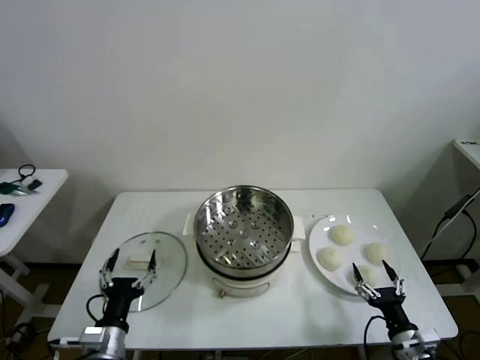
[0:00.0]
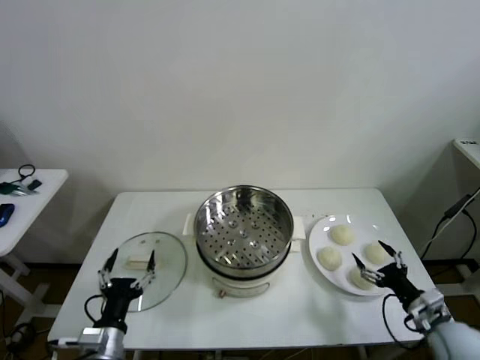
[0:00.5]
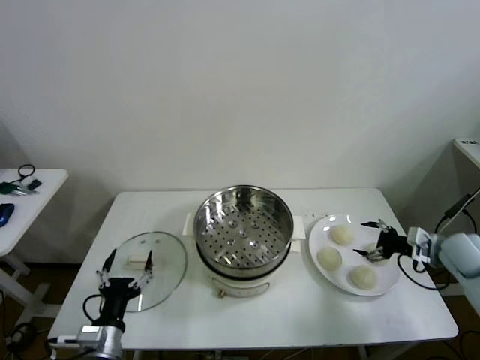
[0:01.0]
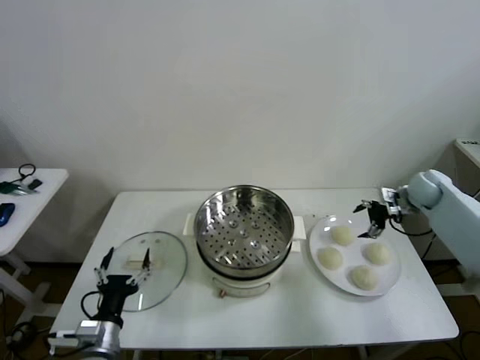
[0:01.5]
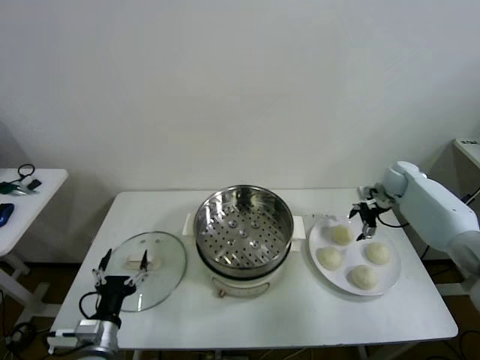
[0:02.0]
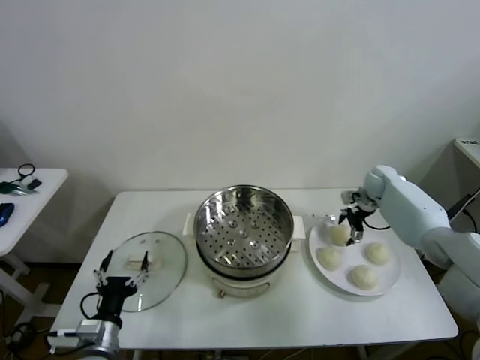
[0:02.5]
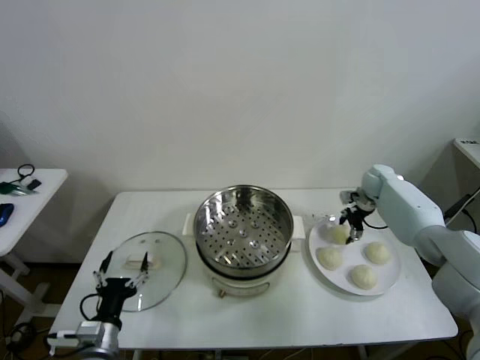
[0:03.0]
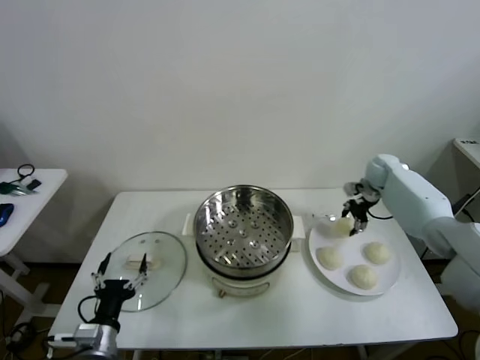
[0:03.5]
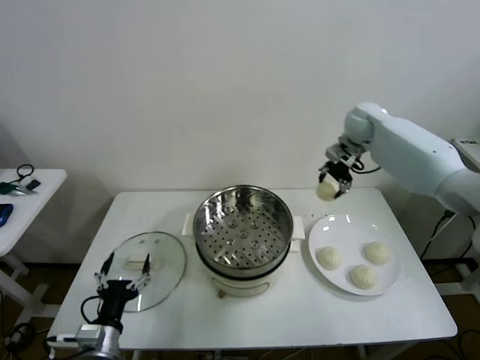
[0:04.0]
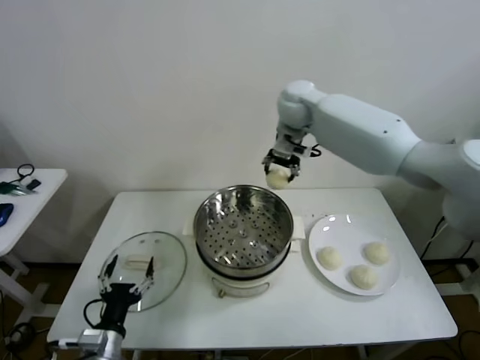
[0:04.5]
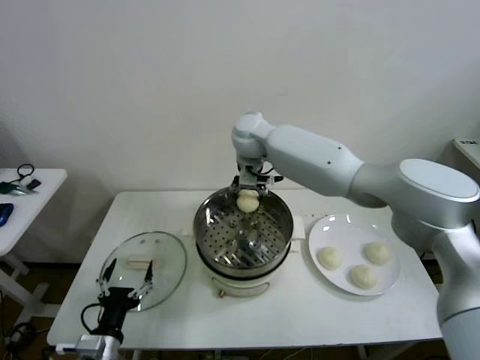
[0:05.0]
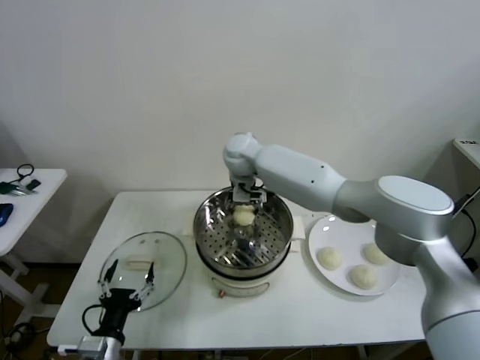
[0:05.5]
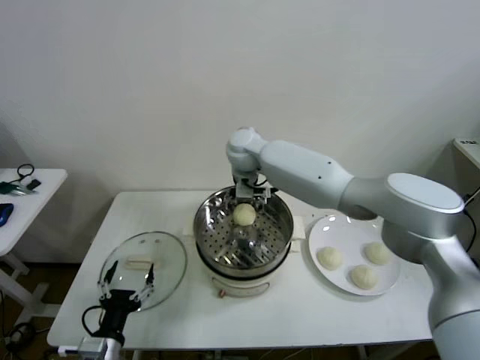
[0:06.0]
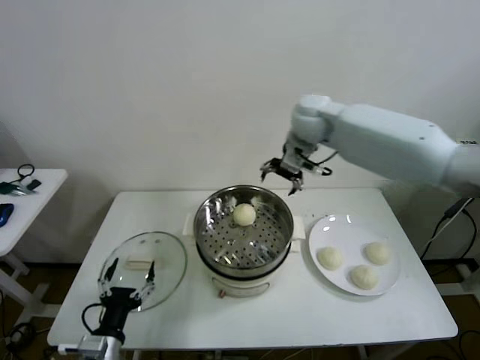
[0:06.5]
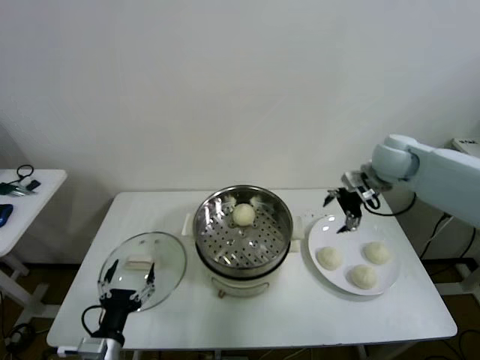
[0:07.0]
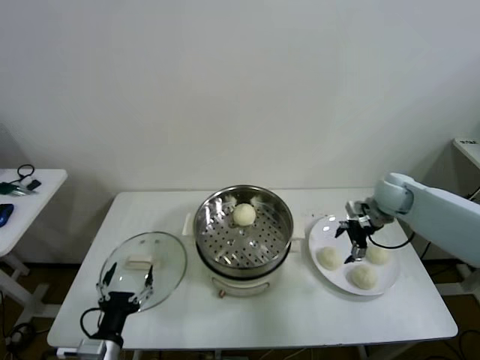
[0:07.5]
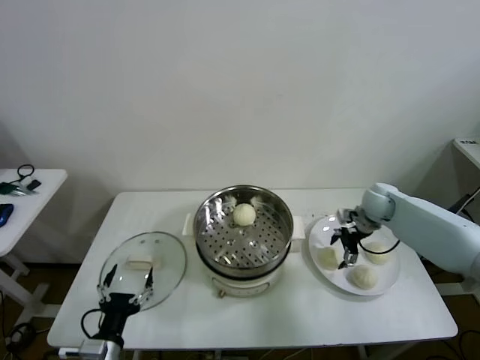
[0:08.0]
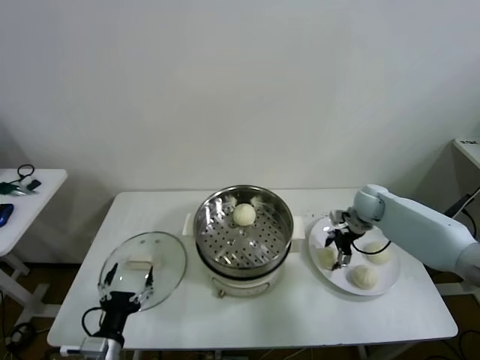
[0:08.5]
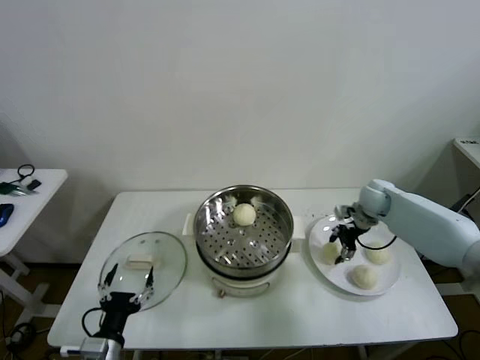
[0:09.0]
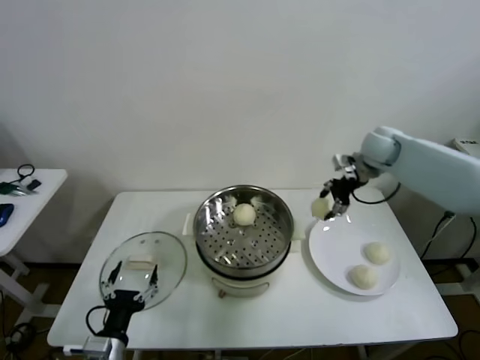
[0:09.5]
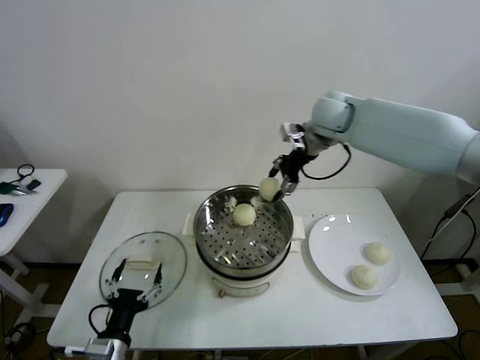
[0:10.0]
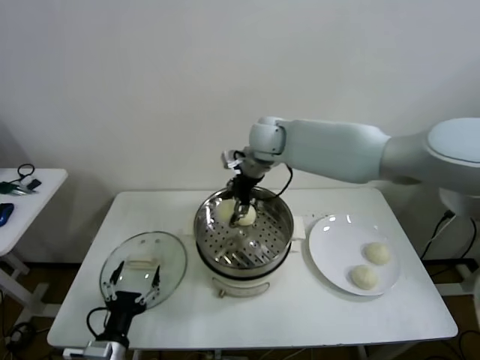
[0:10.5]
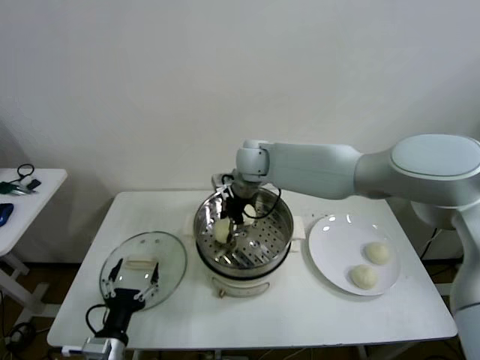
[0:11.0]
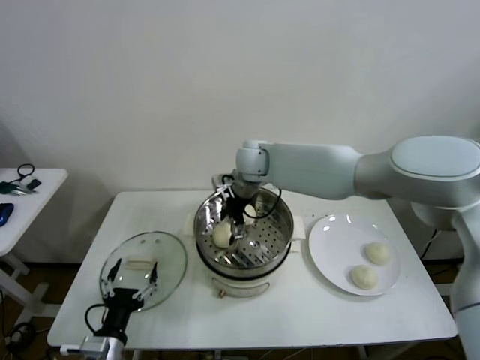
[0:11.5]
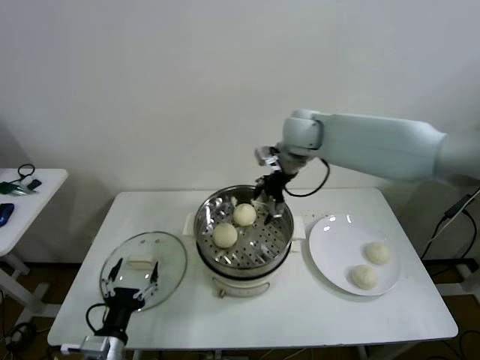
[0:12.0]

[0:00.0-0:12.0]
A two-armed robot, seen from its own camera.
Task of the whole recording: take steamed baozi put them in steamer then cover it.
Step, 0:00.0 to 0:03.0: Grasp the baozi in the plate with right gripper.
Step, 0:03.5 to 0:05.5: Place the baozi on the steamer with right gripper.
Step, 0:06.0 to 0:08.5: Grasp the baozi in the plate with right gripper.
Step, 0:09.0 to 0:11.0: Place the baozi on the steamer with right gripper.
0:02.0 to 0:04.0: The right gripper is displaced upward and to the left by approximately 25 cm, and closes up.
0:04.0 to 0:06.0: The right gripper moves to the left, some 25 cm, and opens its fingers.
0:06.0 to 0:08.0: The right gripper is displaced to the right and downward by about 40 cm.
0:08.0 to 0:10.0: The right gripper moves upward and to the left, some 30 cm, and closes its fingers.
0:10.0 to 0:12.0: The right gripper travels to the left and back again, about 15 cm each way, and opens up.

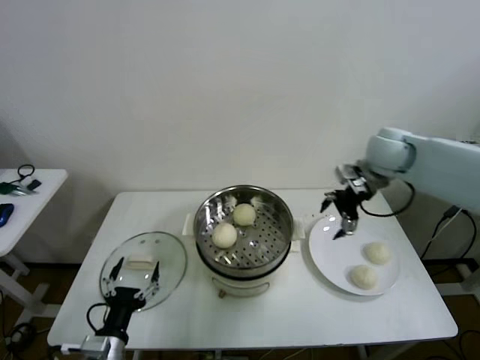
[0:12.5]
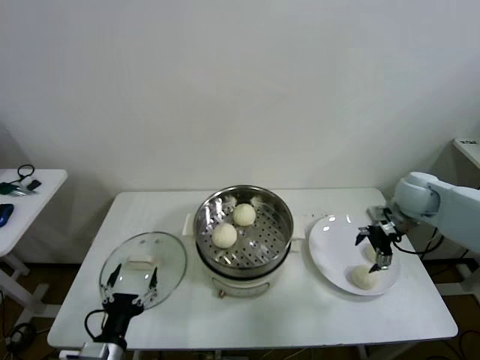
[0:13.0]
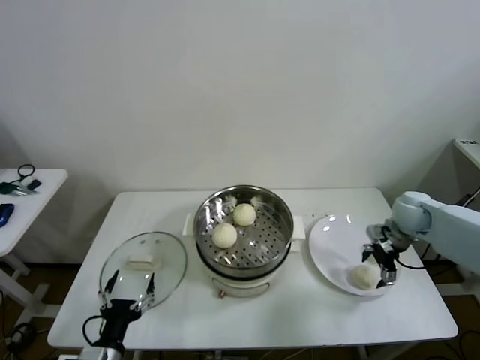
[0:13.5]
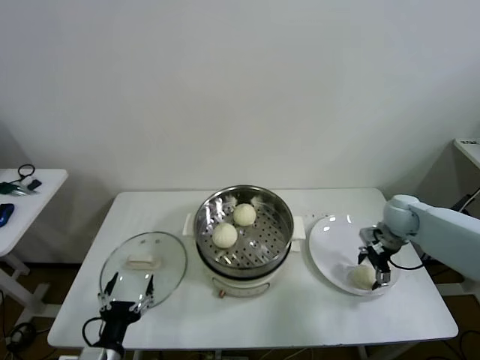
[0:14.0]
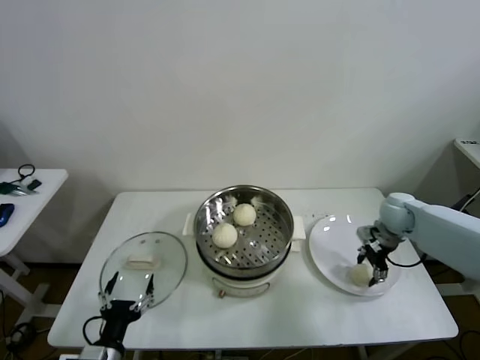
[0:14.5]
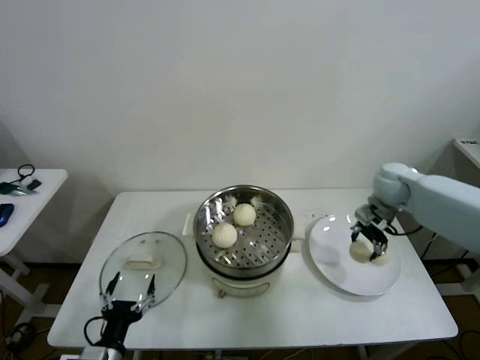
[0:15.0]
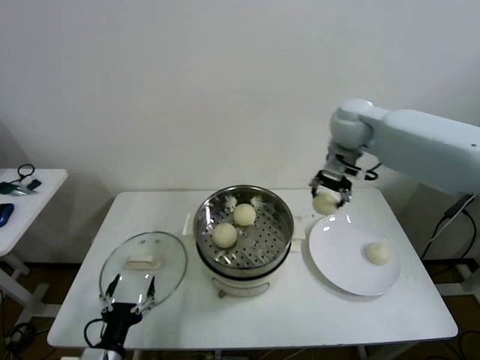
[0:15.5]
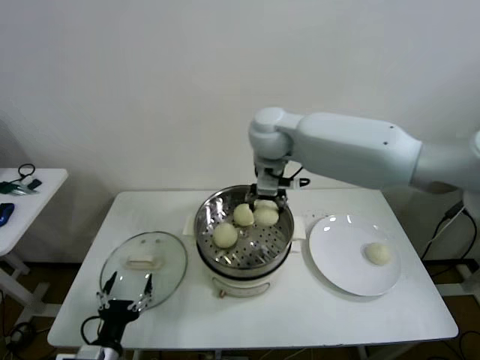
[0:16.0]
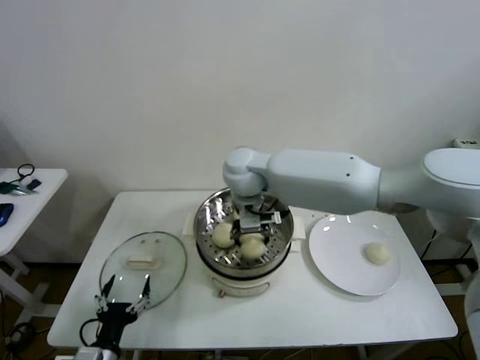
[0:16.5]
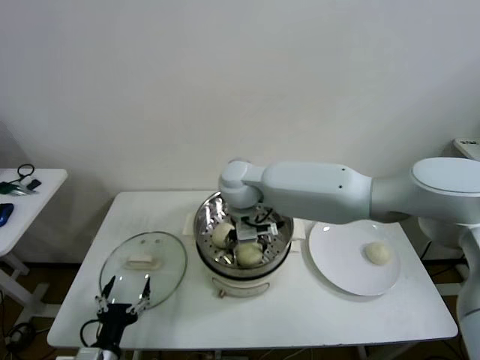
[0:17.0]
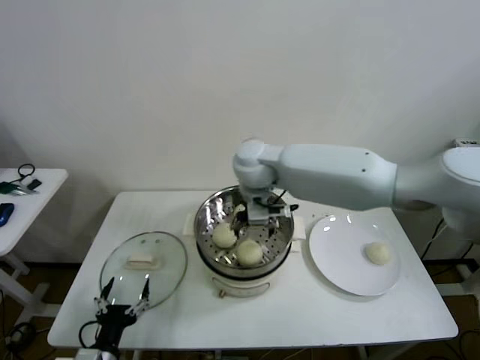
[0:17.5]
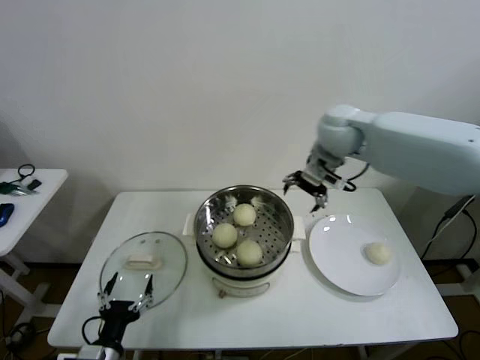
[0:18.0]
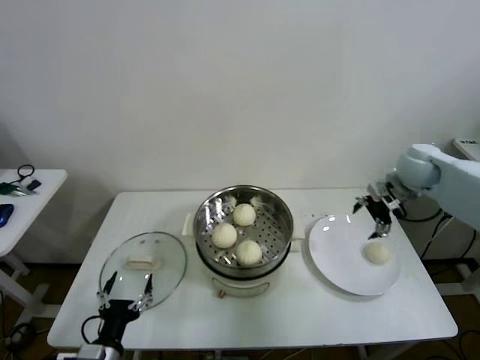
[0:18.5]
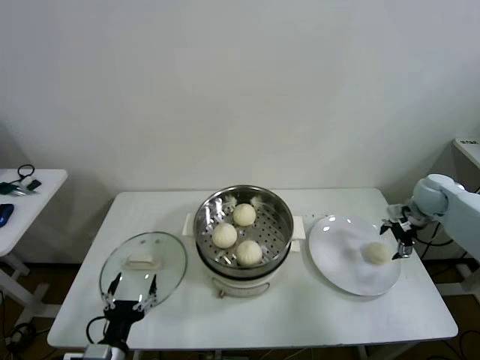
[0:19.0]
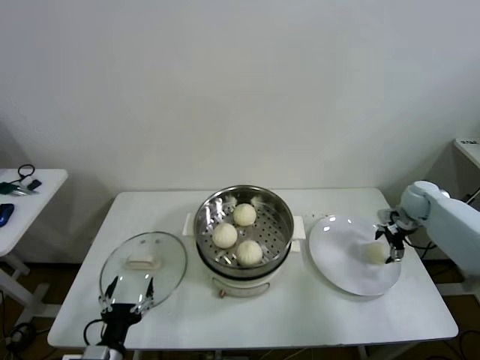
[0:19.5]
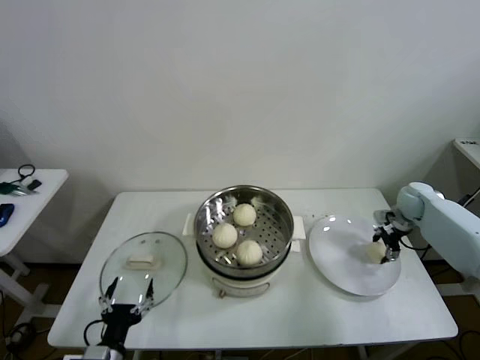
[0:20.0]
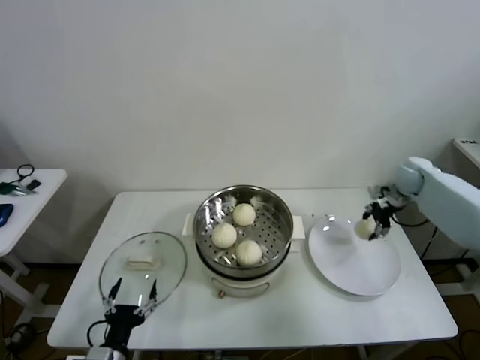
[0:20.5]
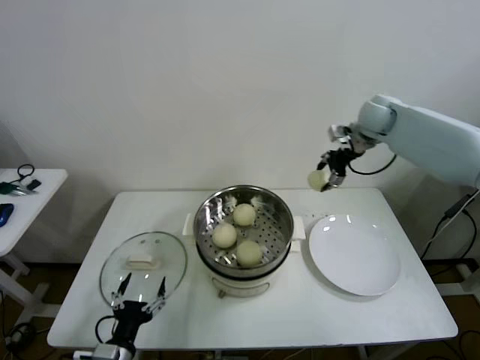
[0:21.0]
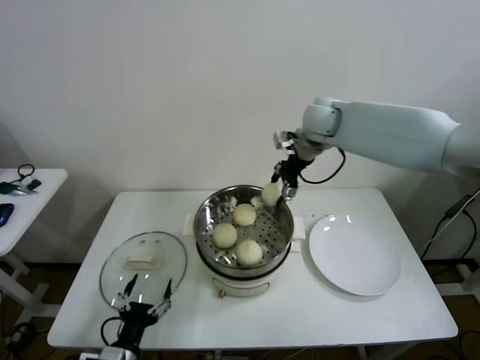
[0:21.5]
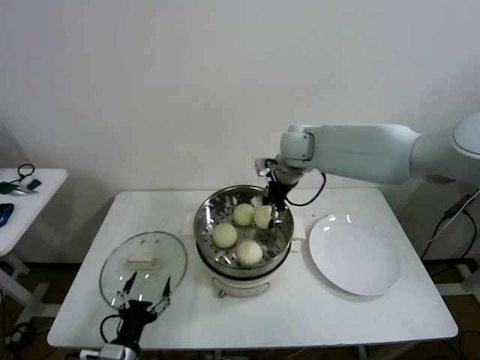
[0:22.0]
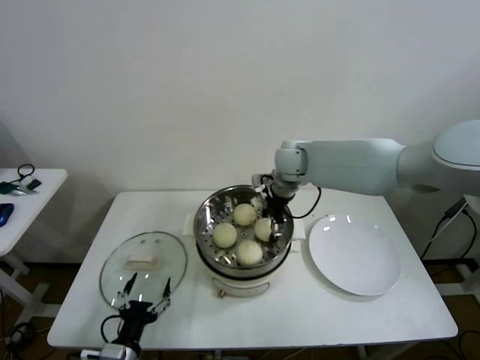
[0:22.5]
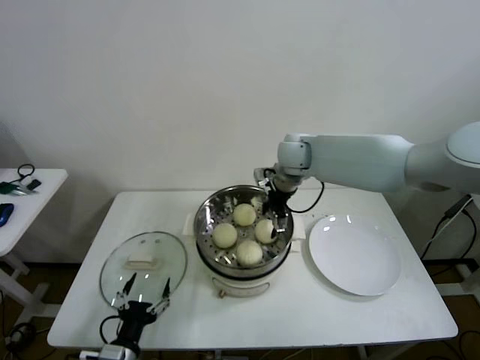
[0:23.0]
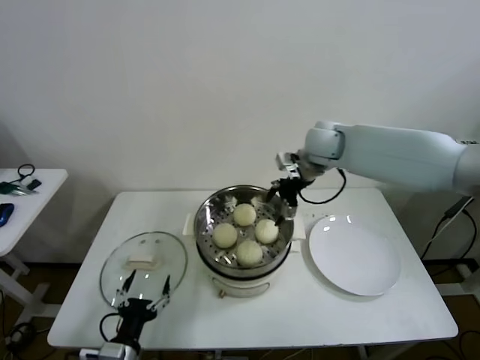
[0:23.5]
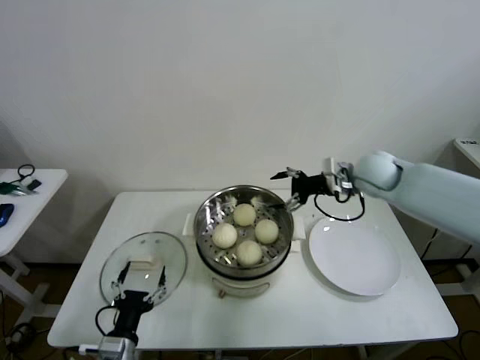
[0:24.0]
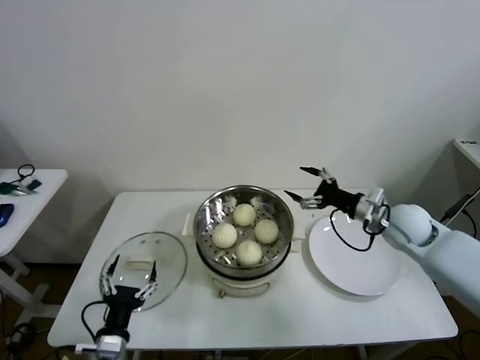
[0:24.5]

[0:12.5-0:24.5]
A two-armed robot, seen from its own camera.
Task of the whole recording: take steamed baozi put them in steamer then cover it.
Step, 0:12.5 to 0:14.0: Grasp the baozi in the plate with right gripper.
Step, 0:15.0 to 0:17.0: Place the baozi on the steamer with right gripper.
Step, 0:17.5 to 0:20.0: Grasp the baozi in the plate with right gripper.
Step, 0:20.5 to 0:22.5: Place the baozi on the steamer with right gripper.
0:12.5 to 0:14.5: The right gripper shifts roughly 20 cm downward and to the right, and closes.
0:14.5 to 0:16.5: The right gripper goes approximately 40 cm to the left.
0:16.5 to 0:18.5: The right gripper travels to the right by about 40 cm, and opens its fingers.
0:18.5 to 0:20.5: The right gripper moves downward and forward, approximately 10 cm, and closes its fingers.
0:20.5 to 0:22.5: The right gripper moves to the left, some 30 cm, and opens.
0:22.5 to 0:24.5: The right gripper shifts roughly 25 cm to the right and backward, and opens its fingers.

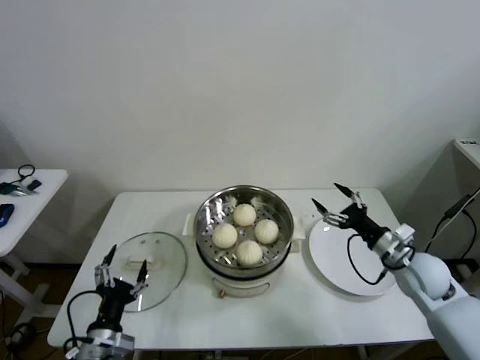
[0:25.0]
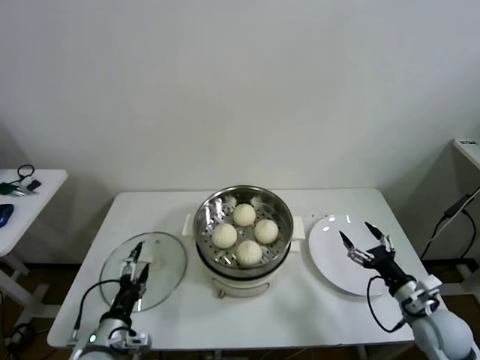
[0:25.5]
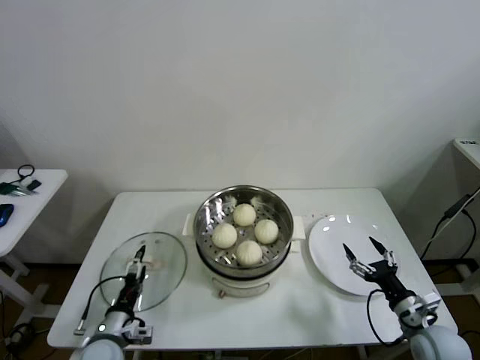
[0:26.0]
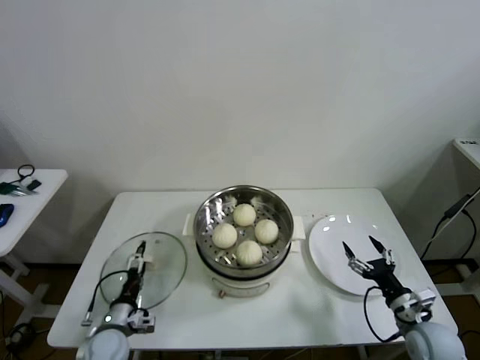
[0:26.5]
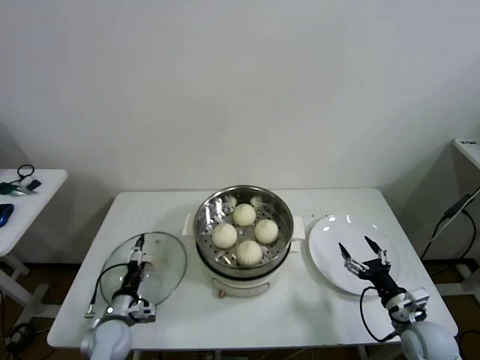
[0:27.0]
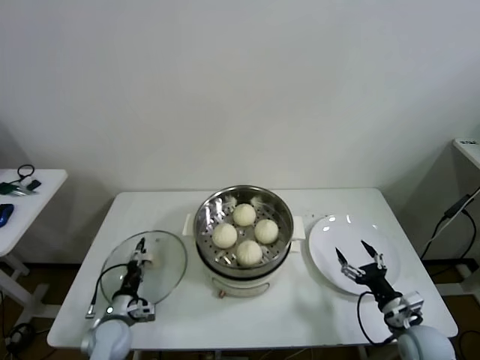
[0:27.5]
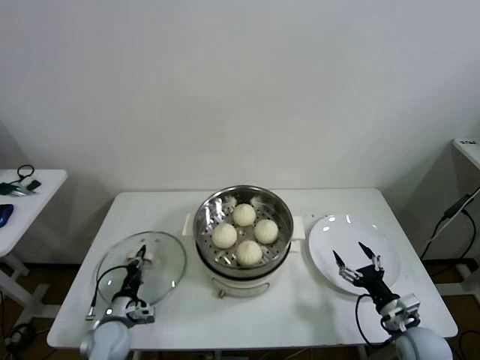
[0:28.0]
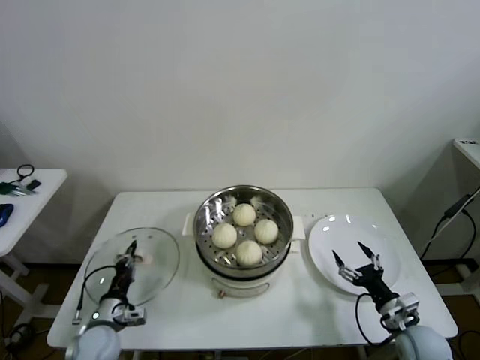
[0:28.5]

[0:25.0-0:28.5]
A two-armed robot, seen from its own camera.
Task of the whole recording: take steamed baozi put them in steamer then cover it.
Step, 0:25.0 to 0:27.5: Grasp the pot lid with left gripper.
0:25.0 to 0:27.0: The right gripper travels backward and downward by roughly 15 cm; the left gripper shifts roughly 15 cm forward and downward.
0:27.0 to 0:28.5: The left gripper closes.
